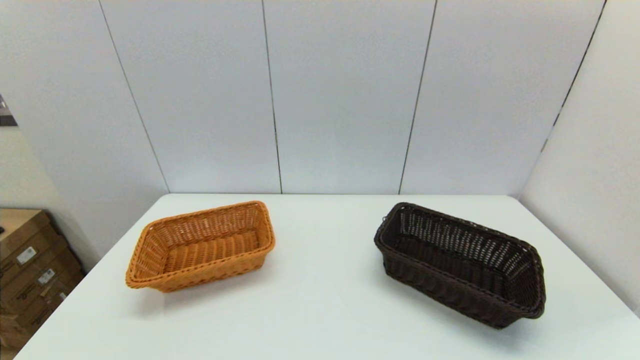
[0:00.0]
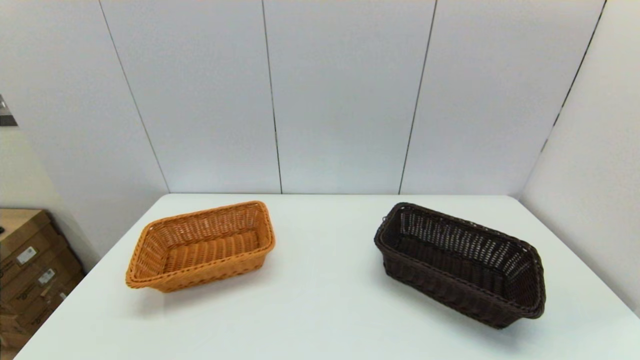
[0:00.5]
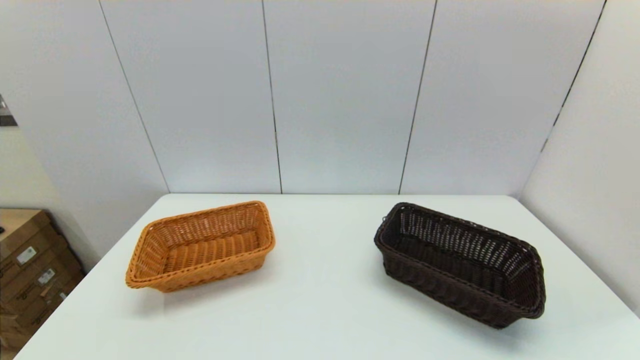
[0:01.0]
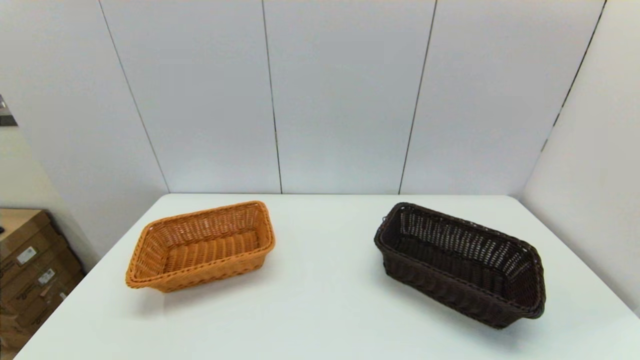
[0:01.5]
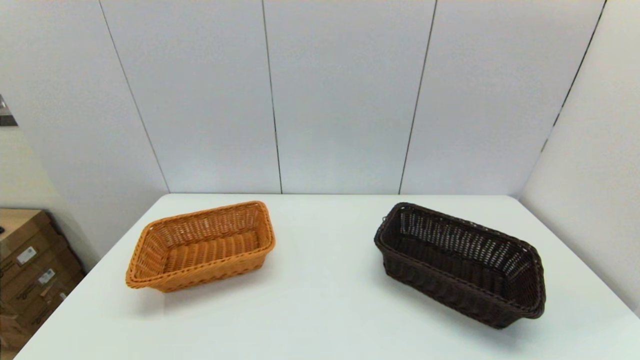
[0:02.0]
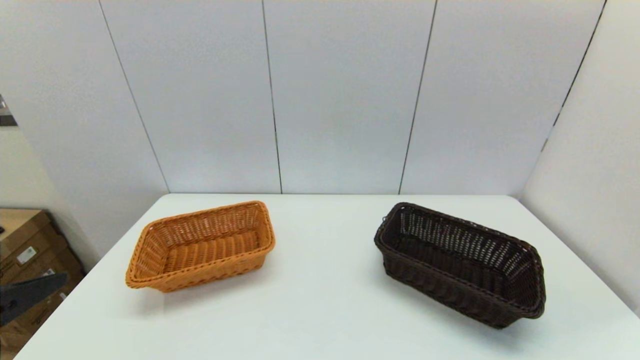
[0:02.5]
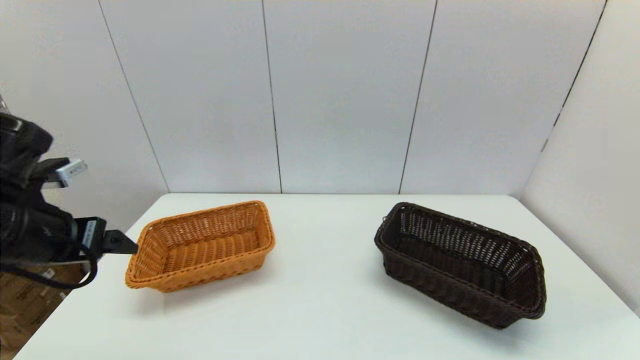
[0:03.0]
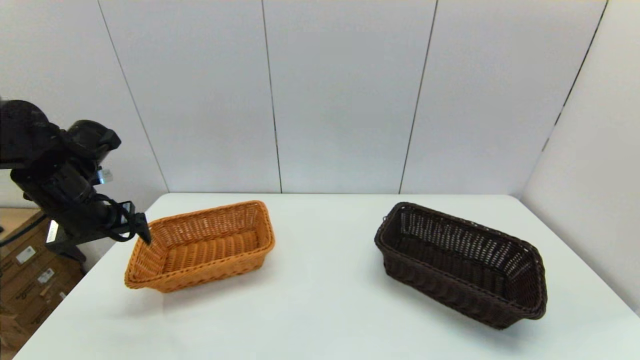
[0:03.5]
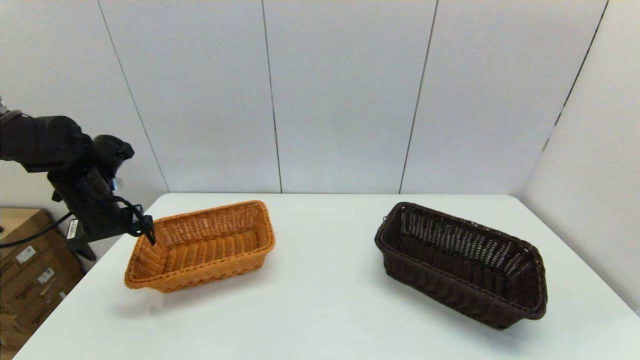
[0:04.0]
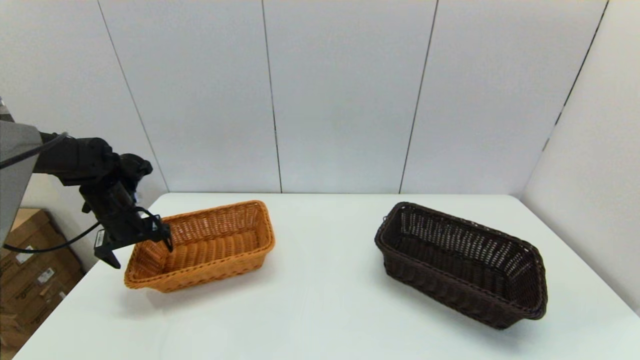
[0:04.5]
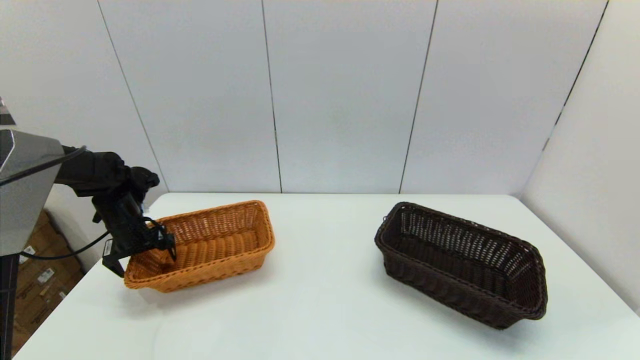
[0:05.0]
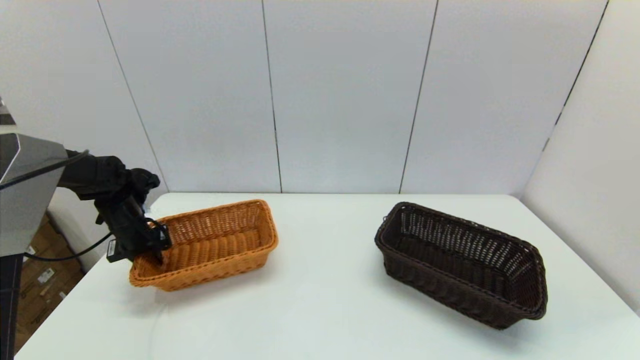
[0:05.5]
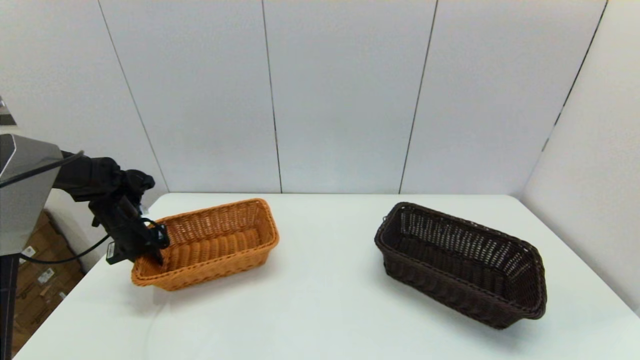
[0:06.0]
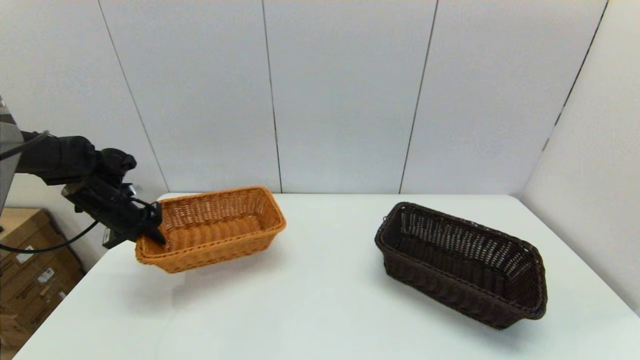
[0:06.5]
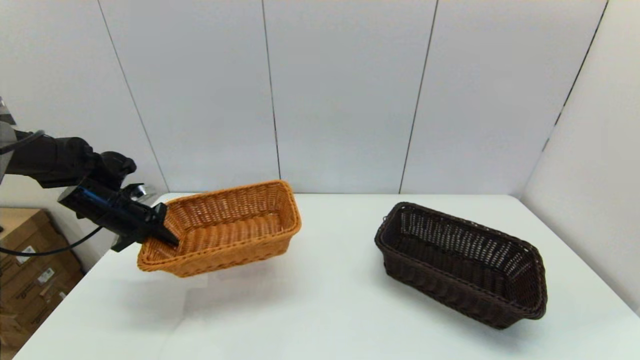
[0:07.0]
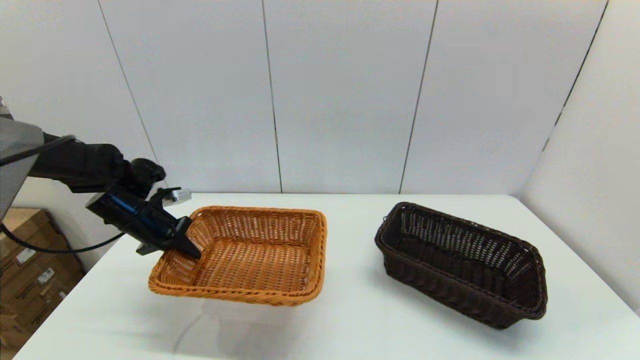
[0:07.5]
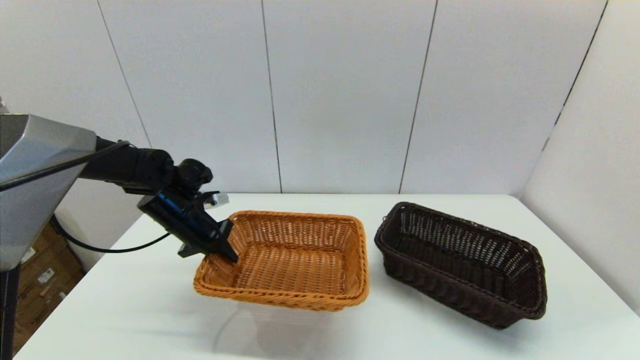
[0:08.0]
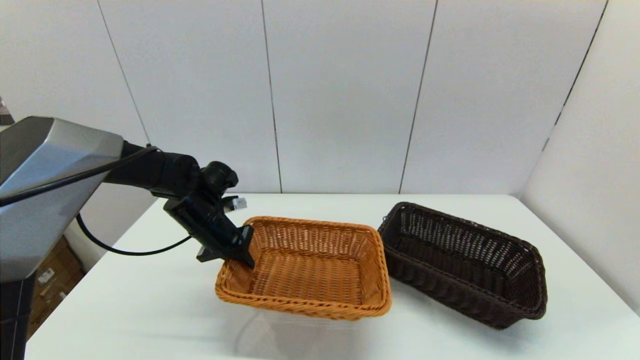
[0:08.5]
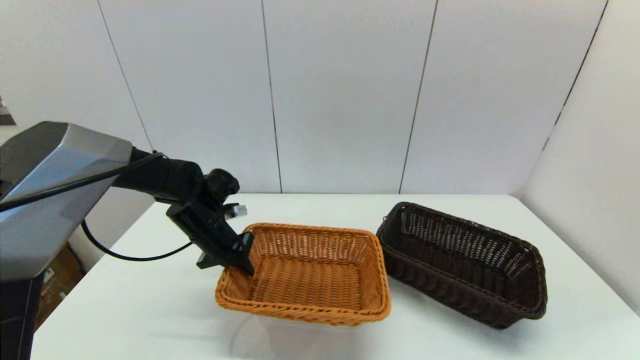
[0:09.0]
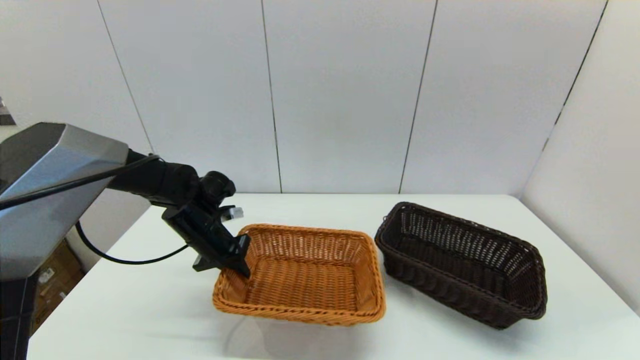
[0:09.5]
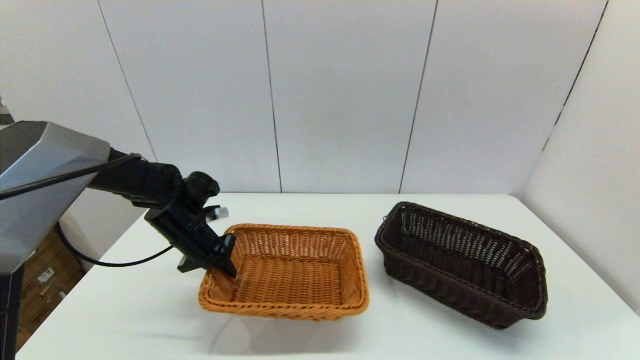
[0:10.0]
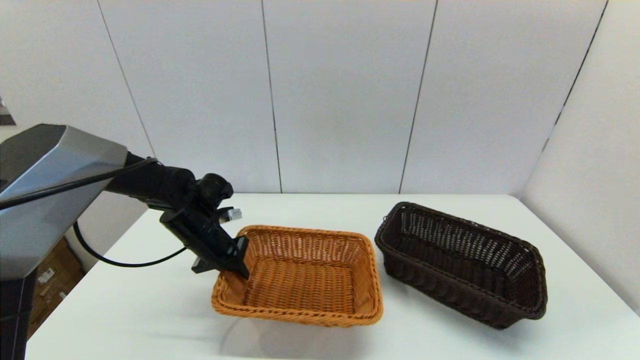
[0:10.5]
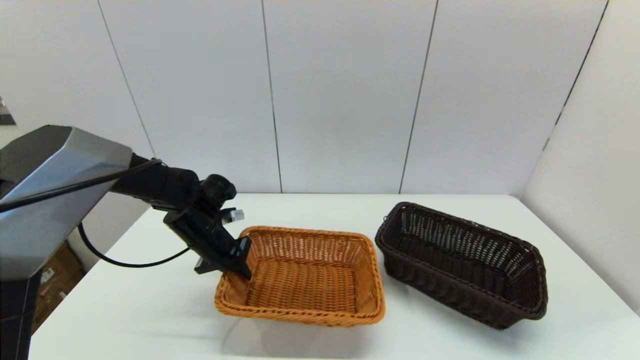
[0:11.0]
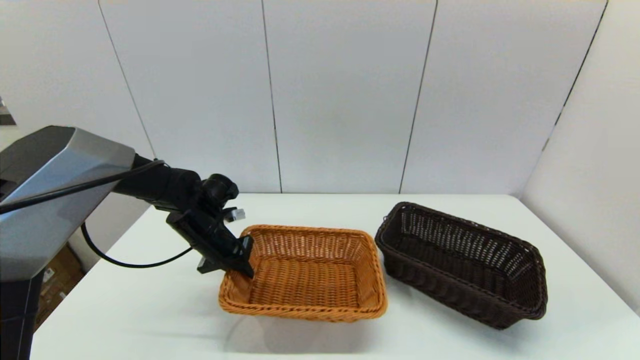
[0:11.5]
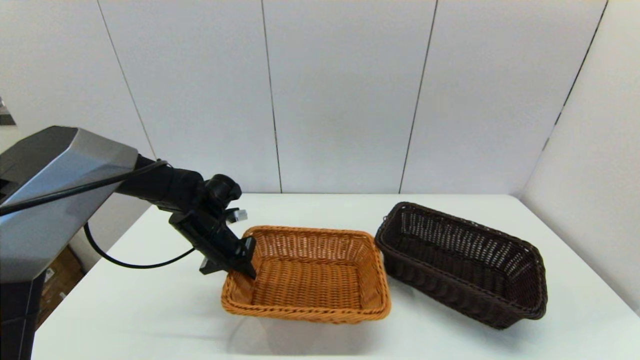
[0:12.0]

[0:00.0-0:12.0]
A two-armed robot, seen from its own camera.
Task of the whole recording: stack a basket on top of another basket.
Step, 0:02.5 to 0:05.5: Grasp the light basket with the left gripper.
0:02.0 to 0:04.0: The left gripper moves forward, some 40 cm.
0:04.0 to 0:06.0: The left gripper goes approximately 10 cm downward, and closes up.
0:06.0 to 0:08.0: The left gripper goes approximately 15 cm to the right.
0:08.0 to 0:12.0: The grippers move only a little.

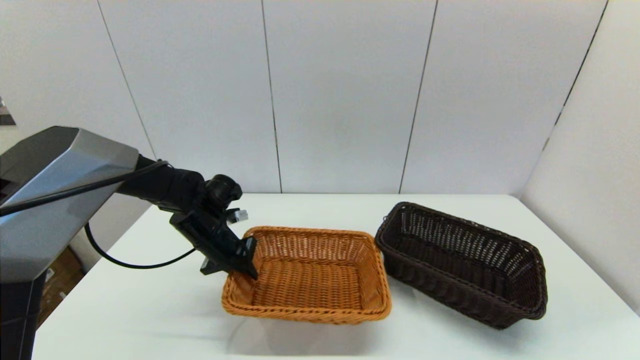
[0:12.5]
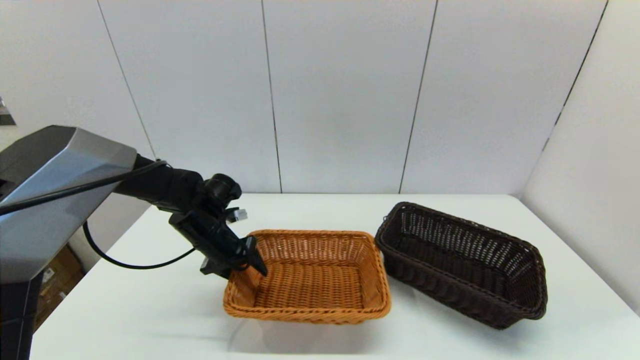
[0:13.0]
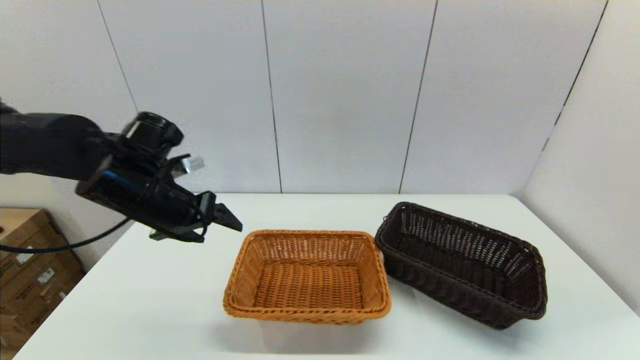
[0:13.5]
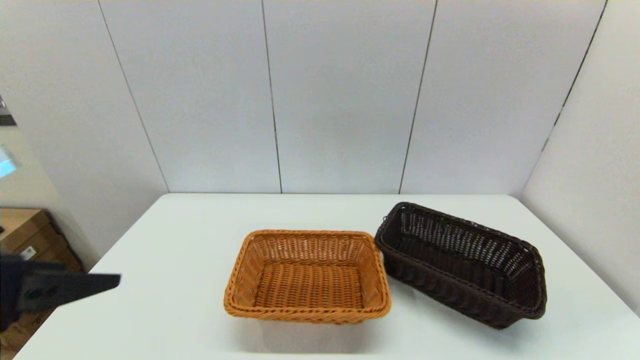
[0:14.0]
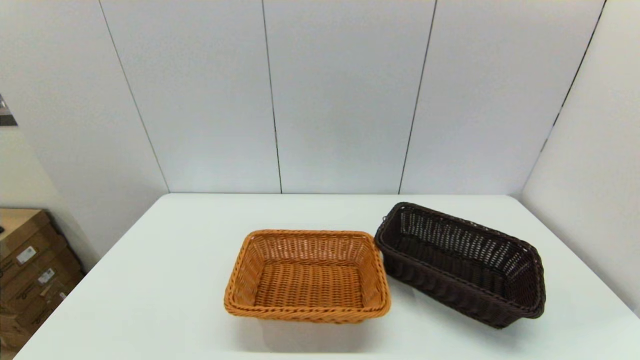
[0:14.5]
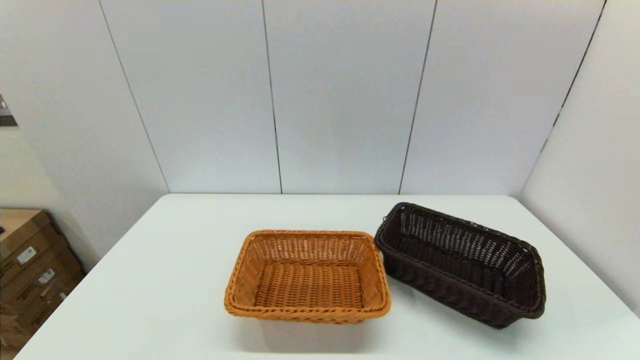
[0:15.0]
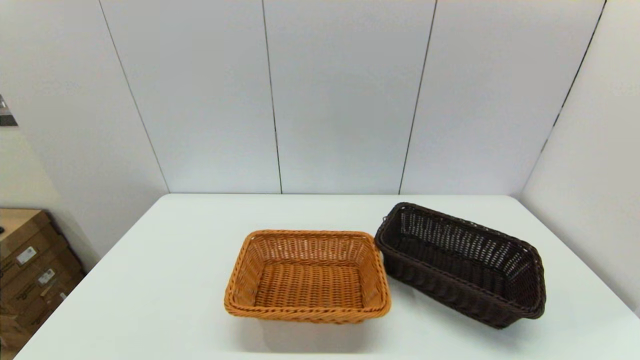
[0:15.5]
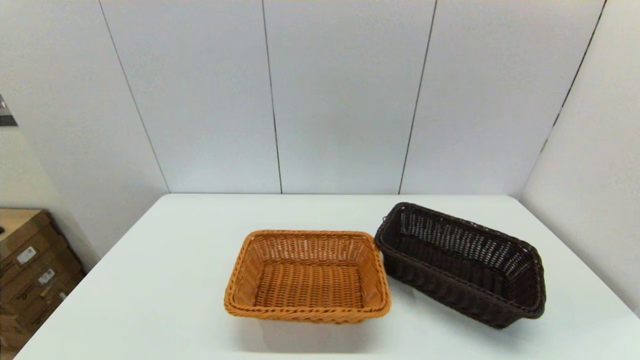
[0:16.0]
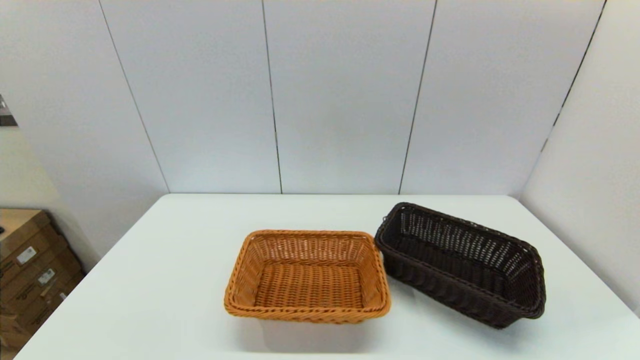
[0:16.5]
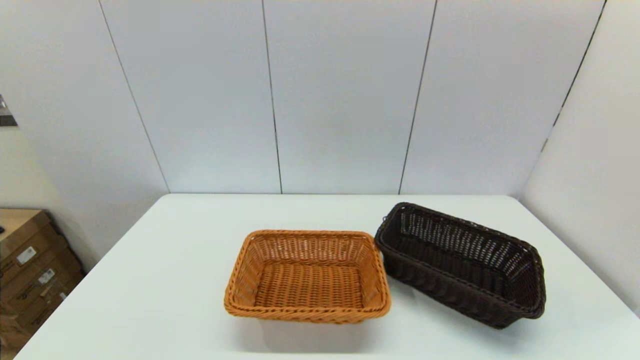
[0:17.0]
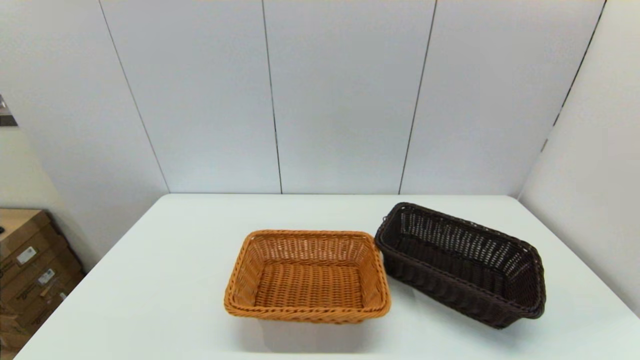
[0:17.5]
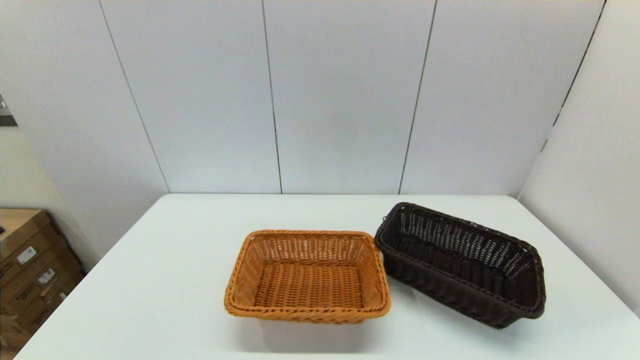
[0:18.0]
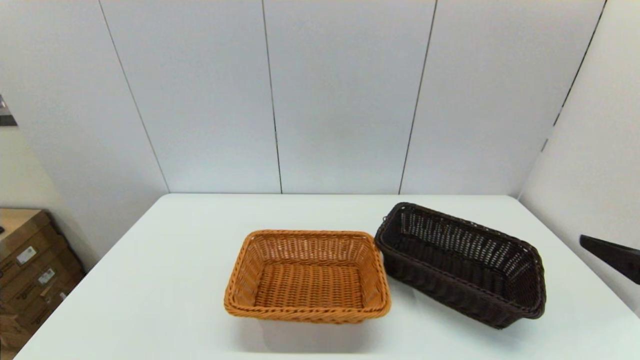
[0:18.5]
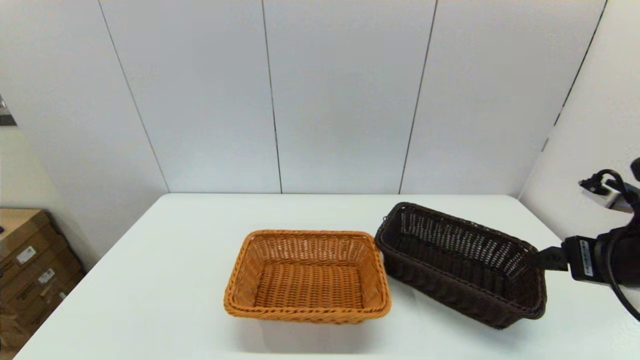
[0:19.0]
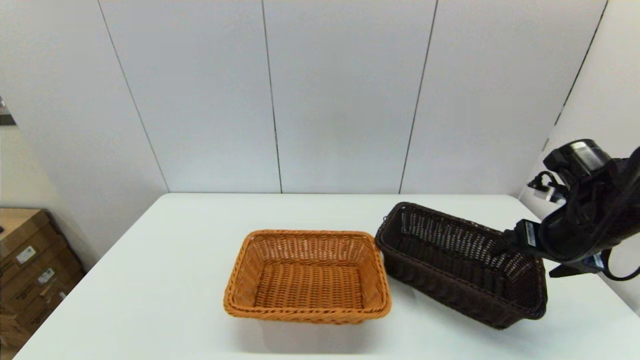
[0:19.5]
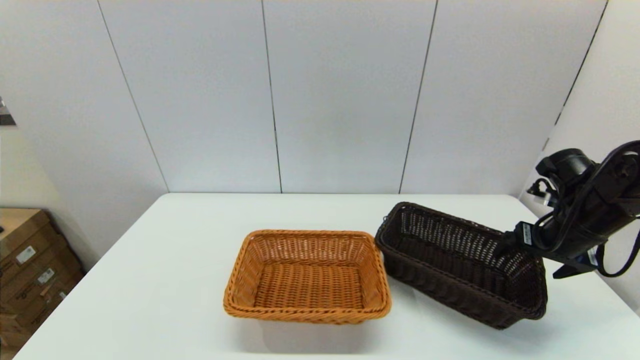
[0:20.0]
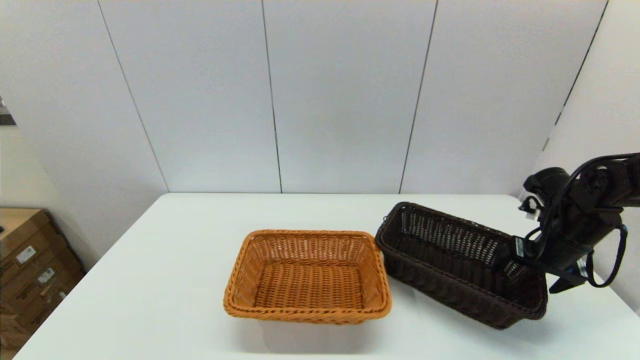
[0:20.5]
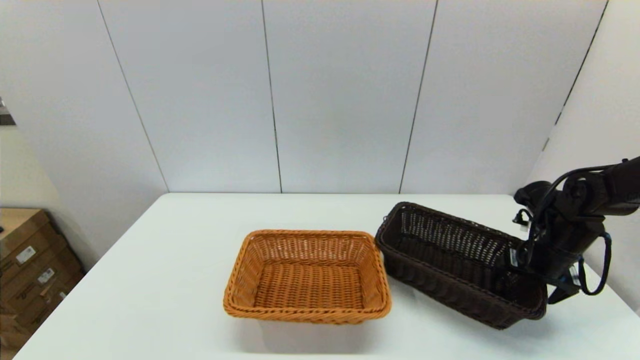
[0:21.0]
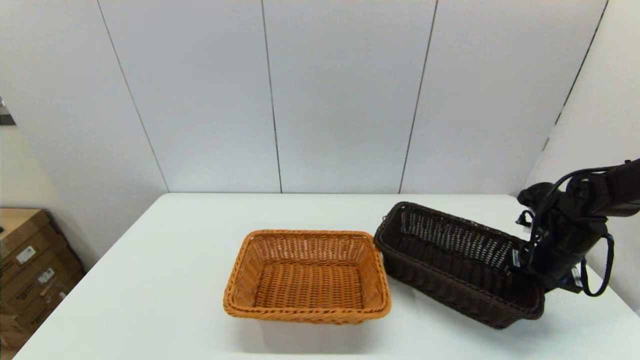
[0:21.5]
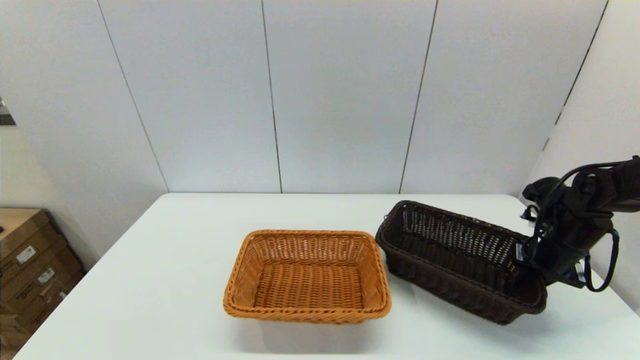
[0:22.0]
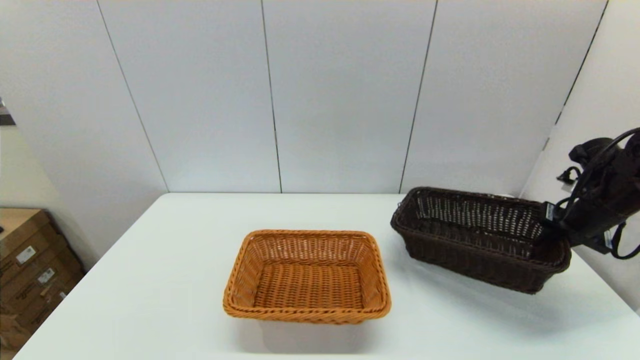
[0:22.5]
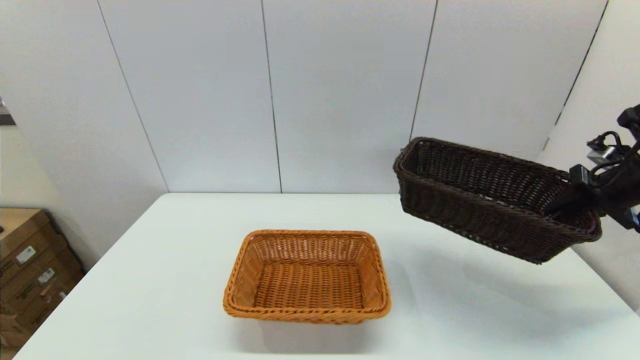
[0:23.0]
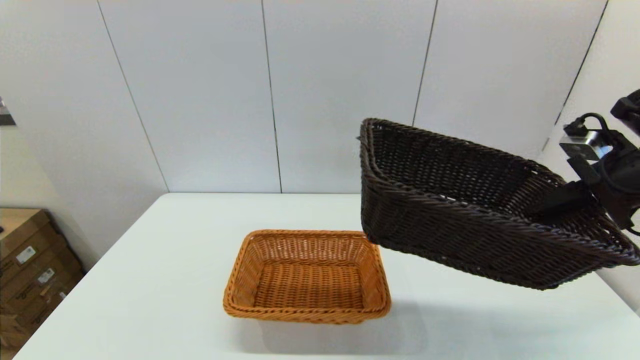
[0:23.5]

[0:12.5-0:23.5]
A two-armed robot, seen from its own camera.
Task of the whole recording: stack a basket on top of another basket.
Step, 0:13.5 to 0:21.0: Grasp the dark basket with the right gripper.
0:12.5 to 0:14.5: The left gripper shifts about 40 cm backward, and opens its fingers.
0:18.0 to 0:20.0: The right gripper heads forward, covering roughly 30 cm.
0:20.0 to 0:21.5: The right gripper heads downward, covering about 5 cm, and closes up.
0:21.5 to 0:23.5: The right gripper moves upward, approximately 20 cm.
